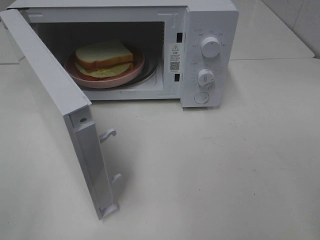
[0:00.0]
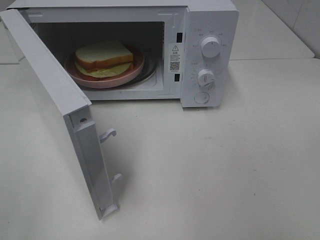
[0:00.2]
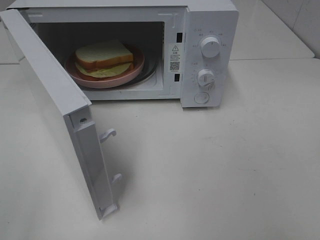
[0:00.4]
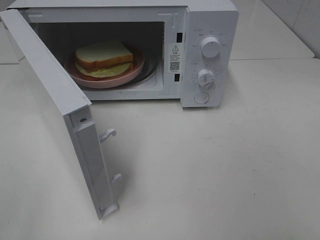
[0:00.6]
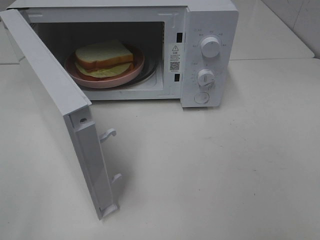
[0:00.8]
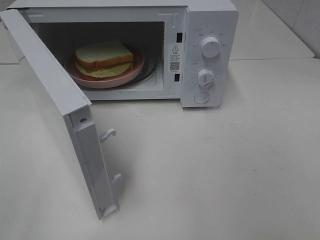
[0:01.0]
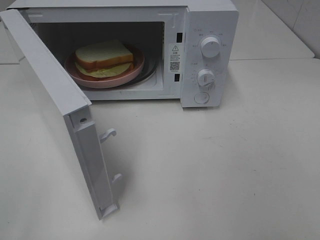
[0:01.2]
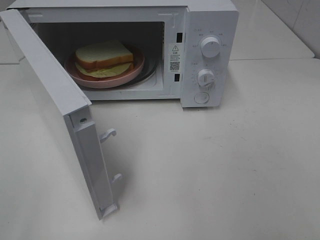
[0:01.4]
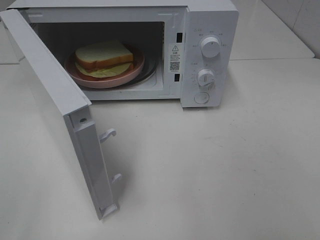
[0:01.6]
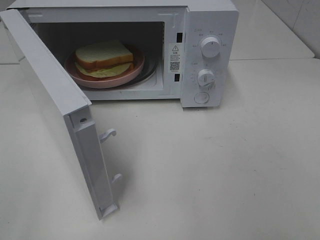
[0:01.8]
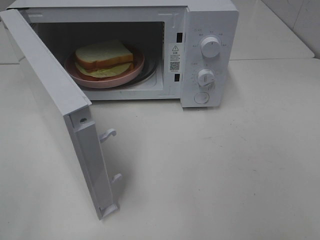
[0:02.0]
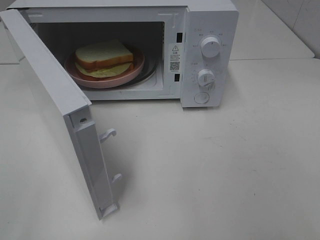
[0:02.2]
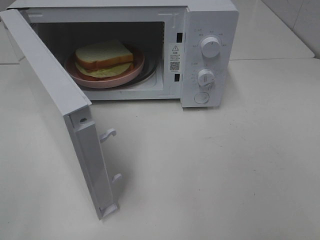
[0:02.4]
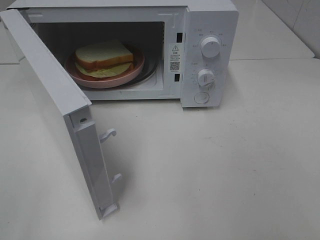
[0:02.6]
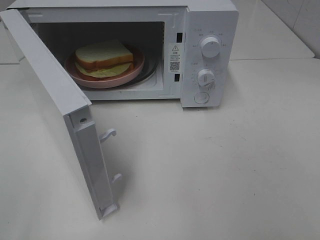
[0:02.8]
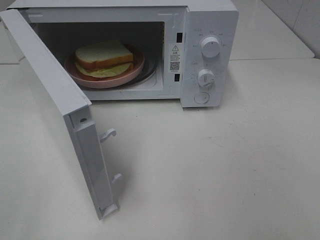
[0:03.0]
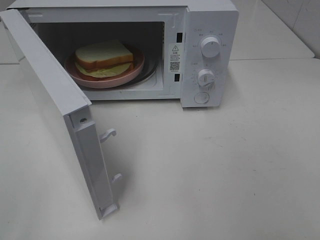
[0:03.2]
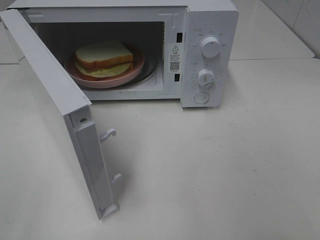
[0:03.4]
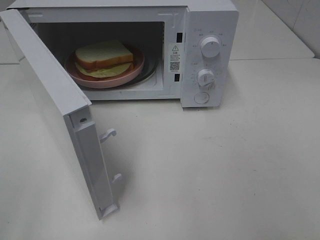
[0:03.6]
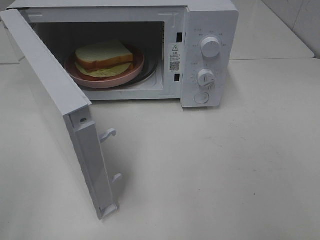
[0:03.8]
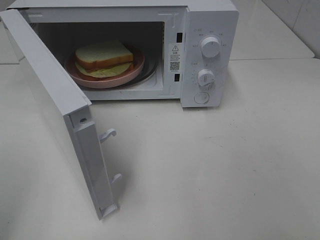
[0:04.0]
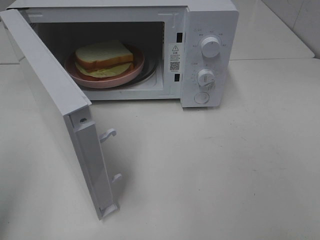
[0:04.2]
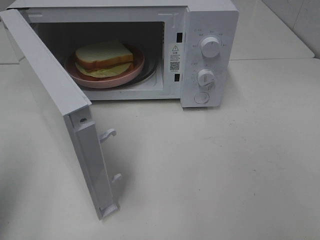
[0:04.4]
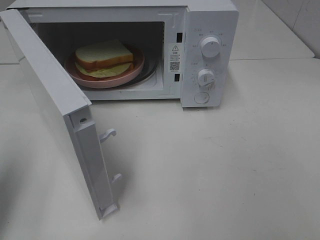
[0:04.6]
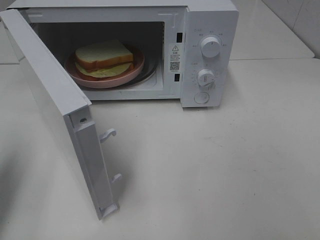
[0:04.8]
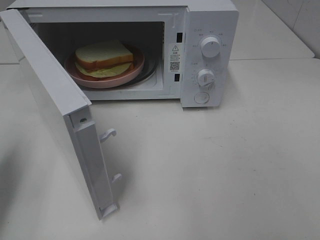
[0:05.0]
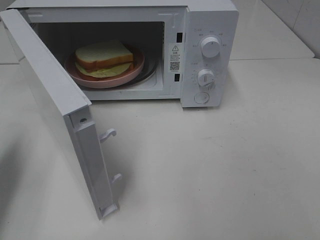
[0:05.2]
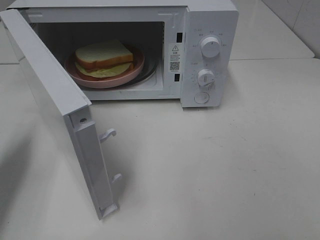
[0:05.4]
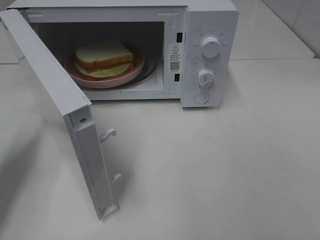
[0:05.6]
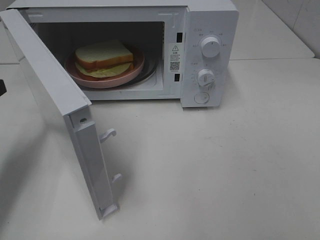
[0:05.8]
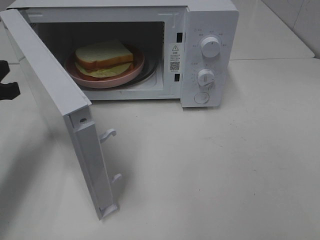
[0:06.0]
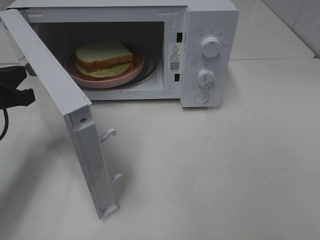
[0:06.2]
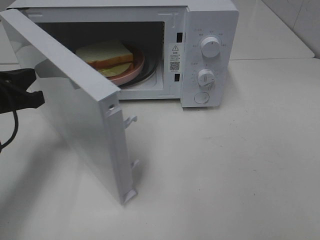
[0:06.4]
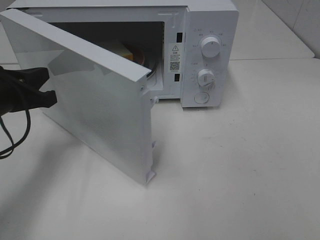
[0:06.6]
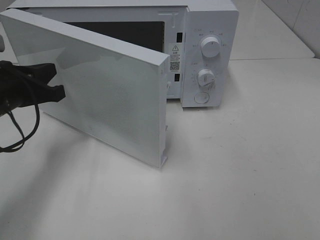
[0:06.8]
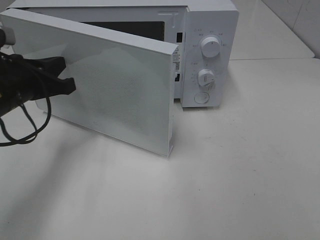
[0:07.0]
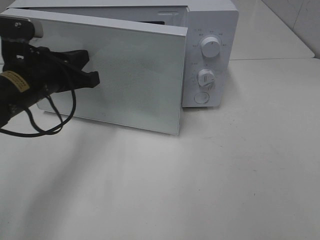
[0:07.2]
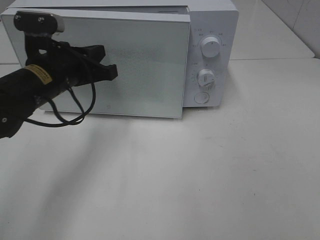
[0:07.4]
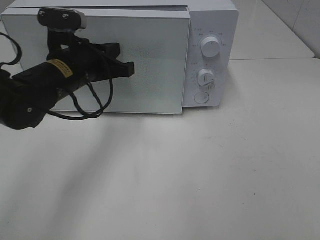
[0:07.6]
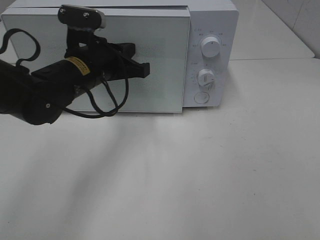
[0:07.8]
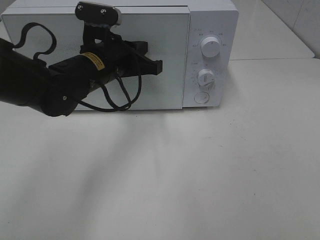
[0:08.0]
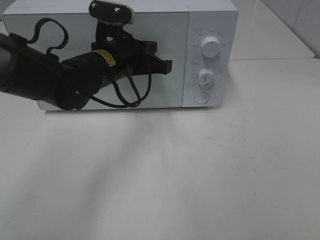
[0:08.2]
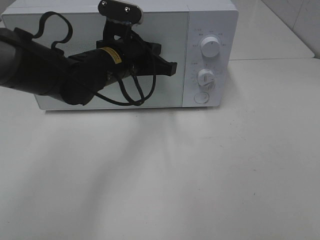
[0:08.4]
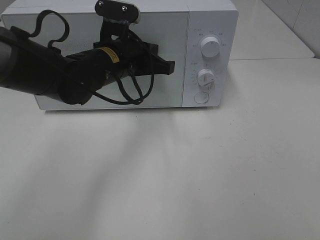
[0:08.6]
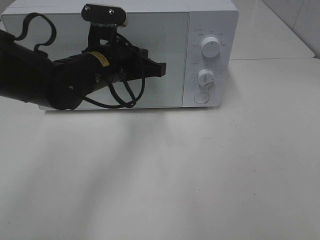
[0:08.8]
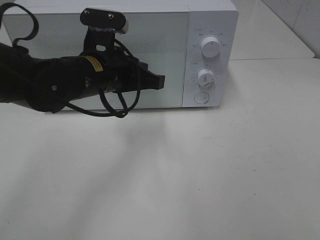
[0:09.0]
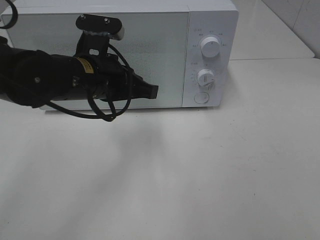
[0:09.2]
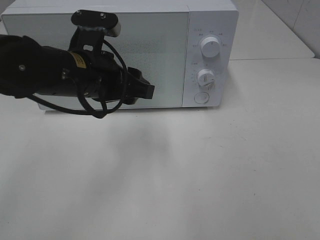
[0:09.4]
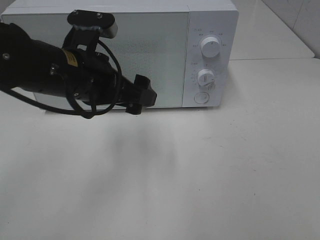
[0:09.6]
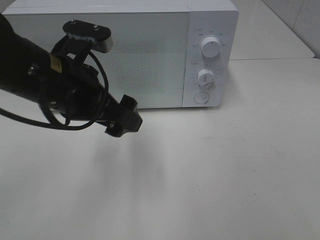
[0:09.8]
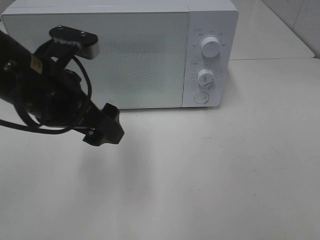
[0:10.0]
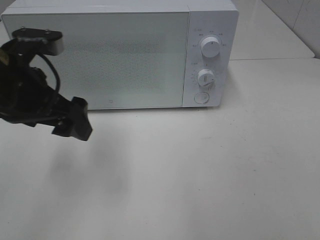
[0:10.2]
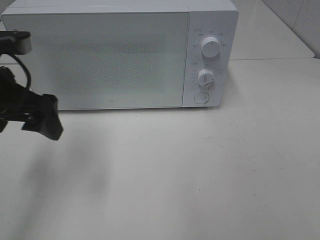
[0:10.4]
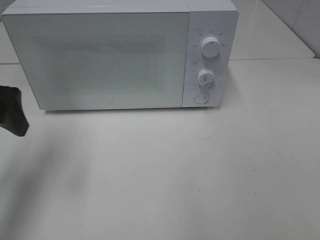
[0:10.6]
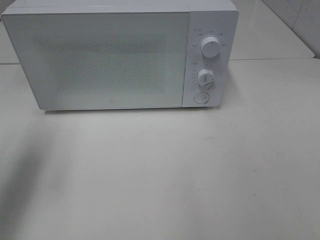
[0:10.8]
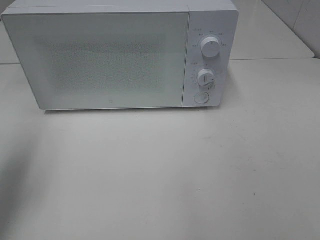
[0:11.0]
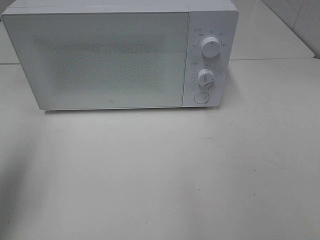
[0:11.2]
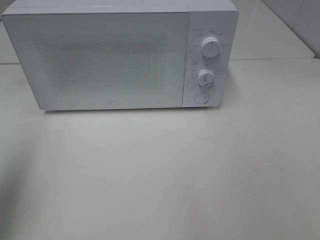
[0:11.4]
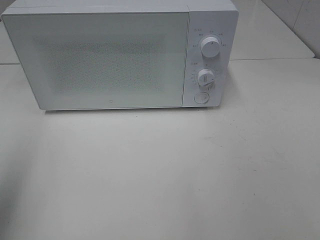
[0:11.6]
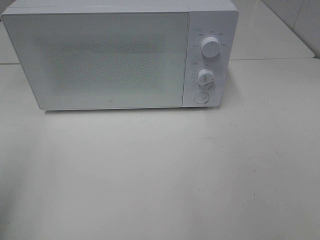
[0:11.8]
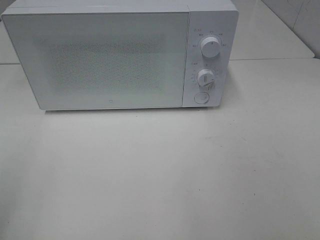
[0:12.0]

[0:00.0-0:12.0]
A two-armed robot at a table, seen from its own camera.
Task of the whole recording: Heat Sandwich.
Step, 0:00.0 to 0:09.0: Left hand: close the microwave door.
0:01.6 to 0:03.0: Both grippers stay about where they are.
0:03.0 to 0:04.4: The left gripper shifts approximately 15 cm forward, and closes its fingers.
0:04.4 to 0:06.0: The left gripper travels forward and downward by about 15 cm.
0:06.0 to 0:07.6: The left gripper moves to the right and forward, approximately 15 cm.
0:09.0 to 0:10.4: The left gripper travels to the left by some 15 cm, and opens its fingers.
0:10.4 to 0:12.0: The left gripper shifts about 20 cm backward and to the left.

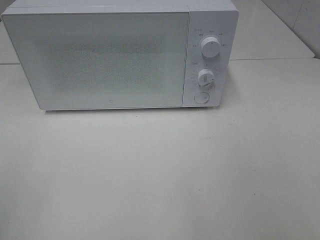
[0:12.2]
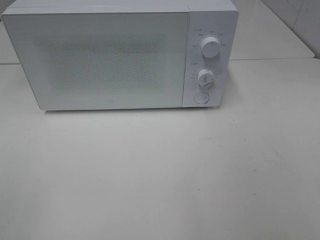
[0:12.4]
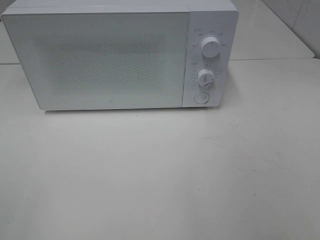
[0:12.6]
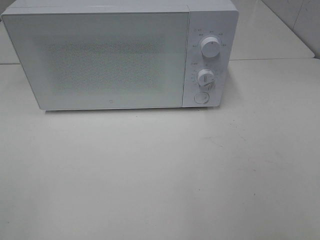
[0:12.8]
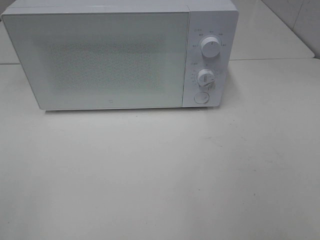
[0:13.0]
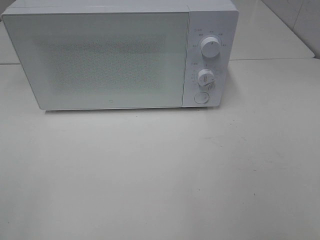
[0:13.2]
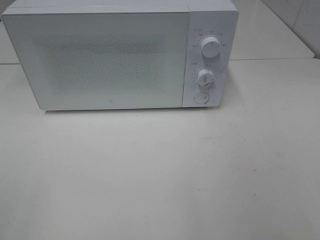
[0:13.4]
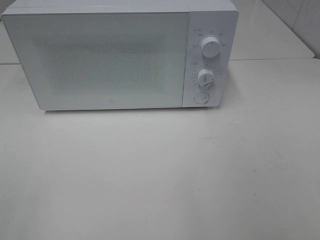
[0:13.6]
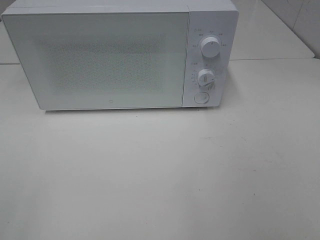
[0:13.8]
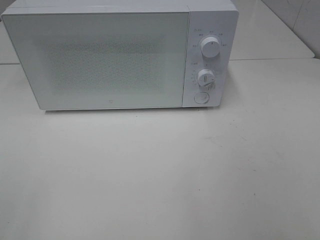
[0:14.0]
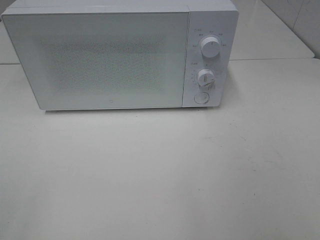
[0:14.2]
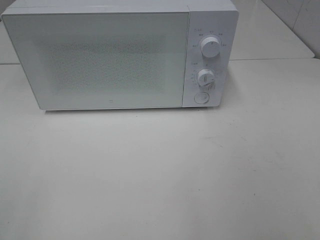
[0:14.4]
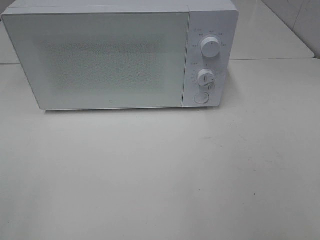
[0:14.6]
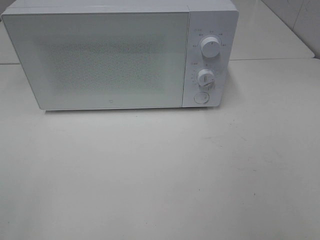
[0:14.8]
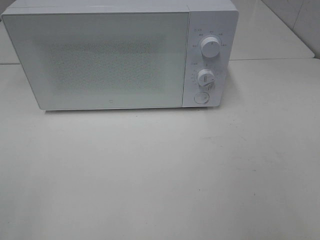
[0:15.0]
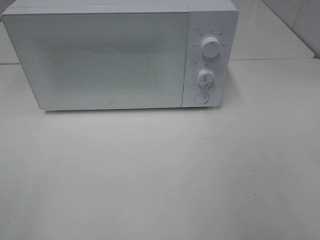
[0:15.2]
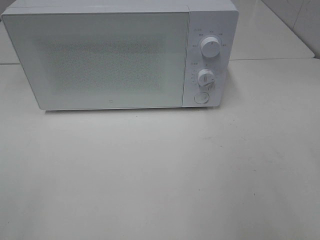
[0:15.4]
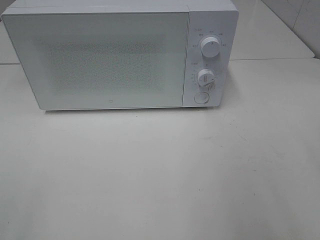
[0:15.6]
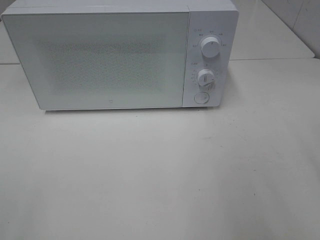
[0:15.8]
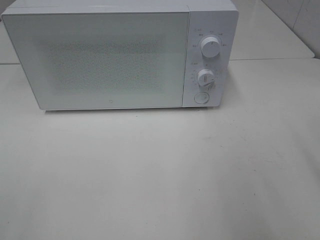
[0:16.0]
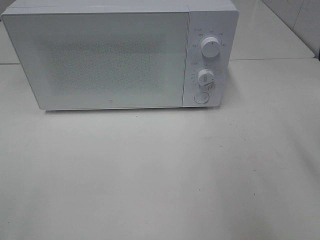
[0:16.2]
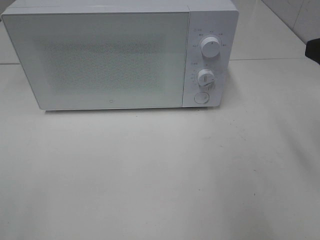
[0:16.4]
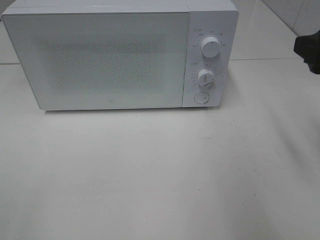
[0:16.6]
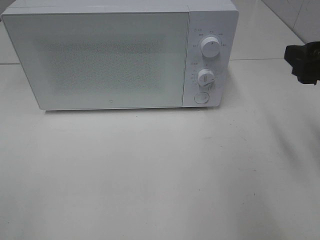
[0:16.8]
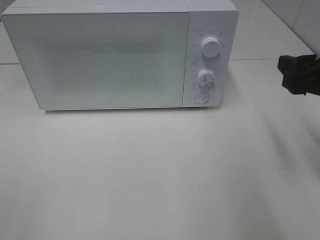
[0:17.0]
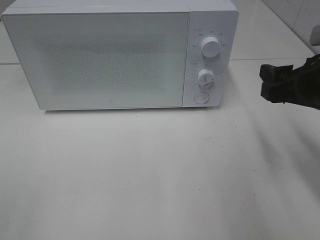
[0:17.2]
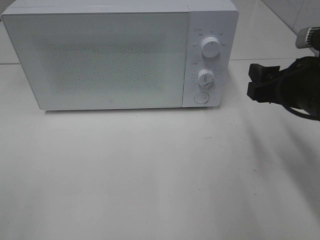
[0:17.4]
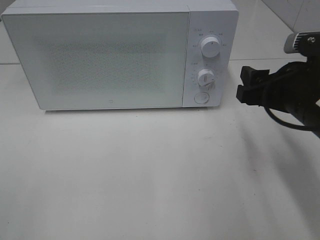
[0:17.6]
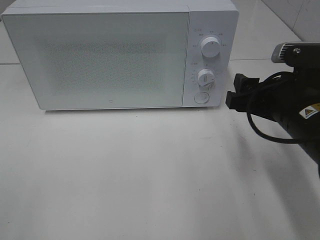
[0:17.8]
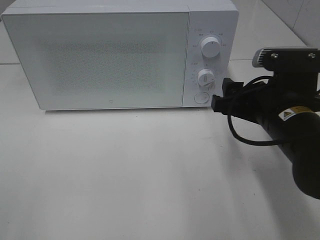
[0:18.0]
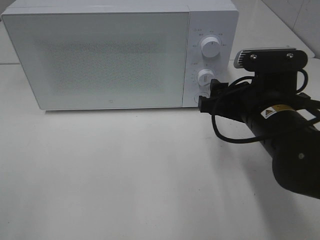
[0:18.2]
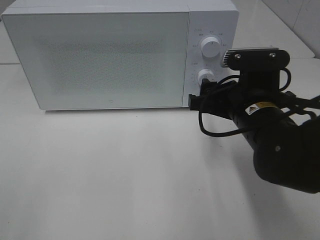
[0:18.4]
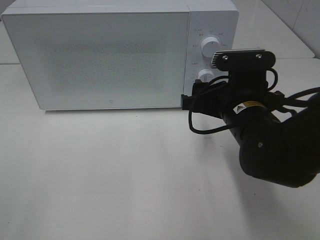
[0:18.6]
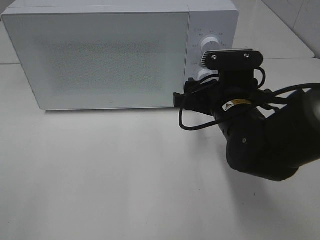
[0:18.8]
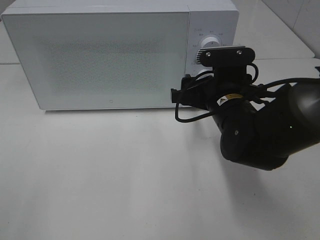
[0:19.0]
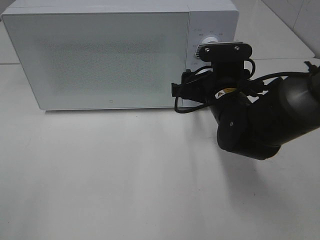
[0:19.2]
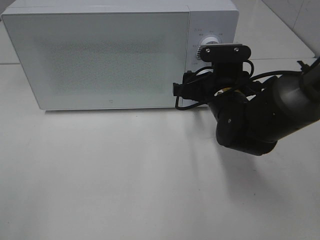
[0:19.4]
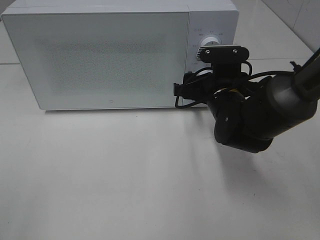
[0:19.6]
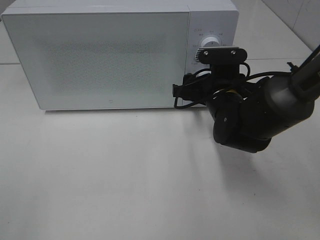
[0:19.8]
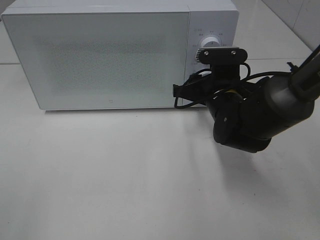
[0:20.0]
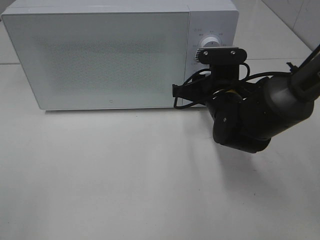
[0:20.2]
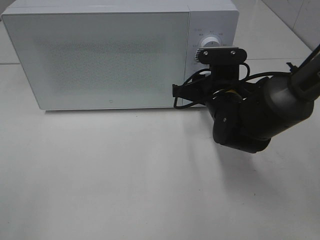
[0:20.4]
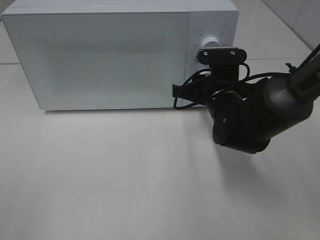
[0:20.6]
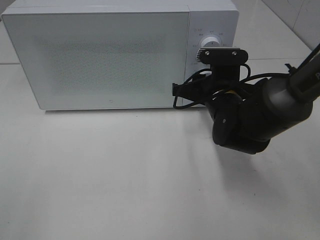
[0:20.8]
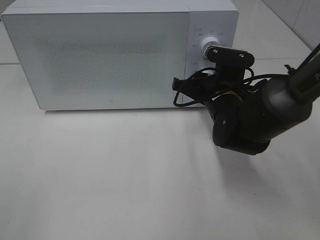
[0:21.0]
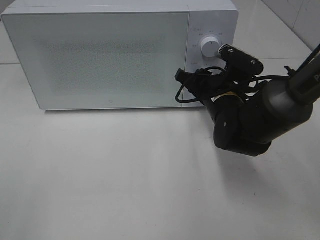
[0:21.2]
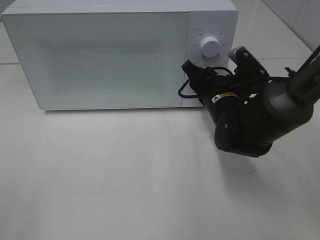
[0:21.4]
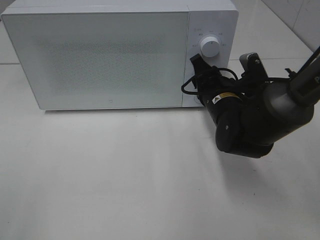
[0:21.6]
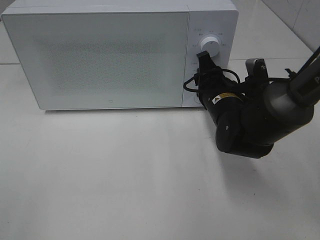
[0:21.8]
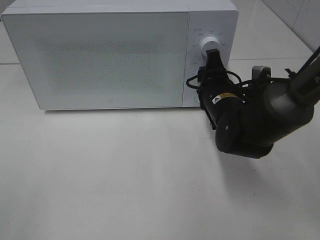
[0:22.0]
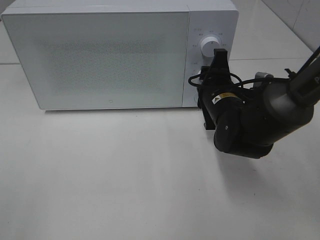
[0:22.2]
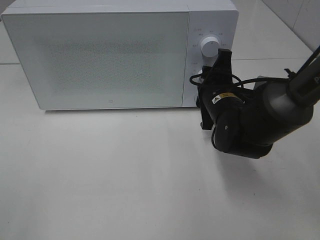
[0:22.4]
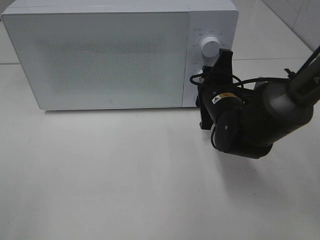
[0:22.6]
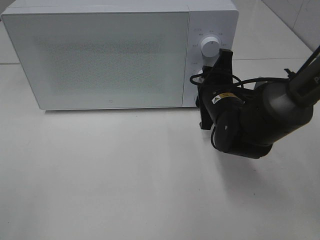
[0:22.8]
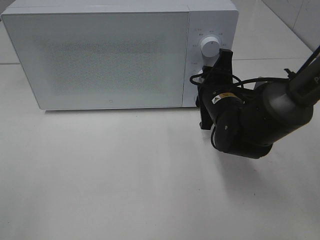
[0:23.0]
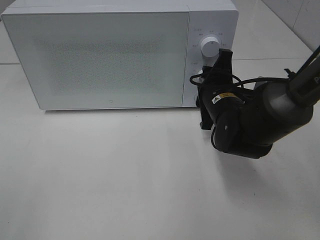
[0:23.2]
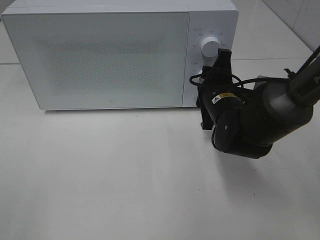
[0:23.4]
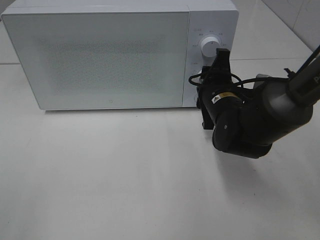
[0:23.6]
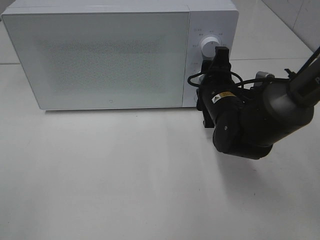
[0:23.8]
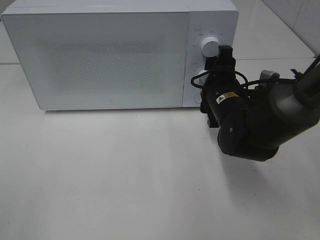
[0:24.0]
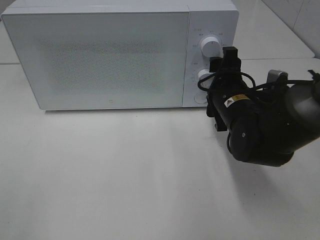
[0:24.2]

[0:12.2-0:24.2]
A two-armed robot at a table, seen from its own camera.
Task of the whole recording: Heat Sandwich.
0:15.2 to 0:16.6: The right gripper goes about 15 cm forward.
0:16.6 to 0:18.2: The right gripper heads to the left and downward, covering about 15 cm.
0:18.2 to 0:19.8: The right gripper heads forward, covering roughly 10 cm.
0:22.6 to 0:24.2: There are only small adjustments of the grippers.
